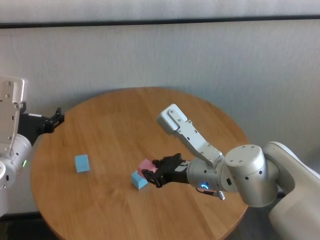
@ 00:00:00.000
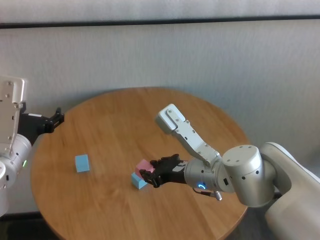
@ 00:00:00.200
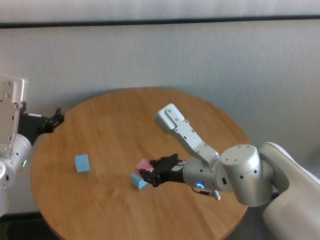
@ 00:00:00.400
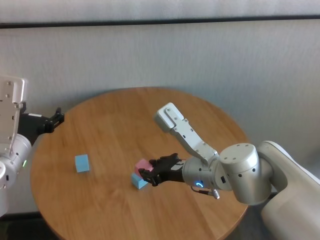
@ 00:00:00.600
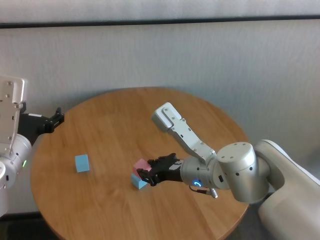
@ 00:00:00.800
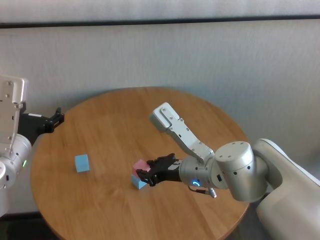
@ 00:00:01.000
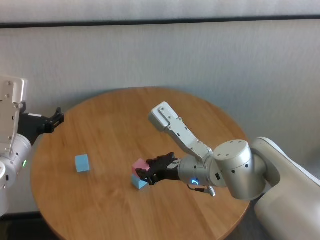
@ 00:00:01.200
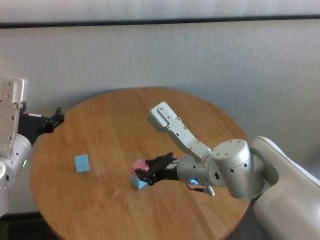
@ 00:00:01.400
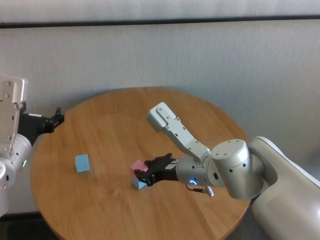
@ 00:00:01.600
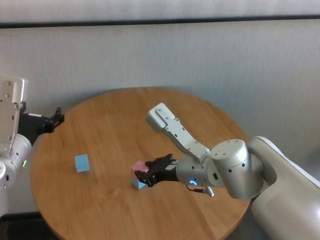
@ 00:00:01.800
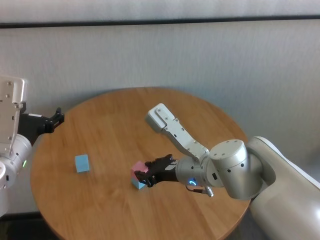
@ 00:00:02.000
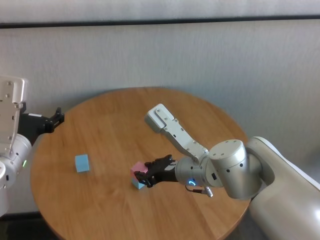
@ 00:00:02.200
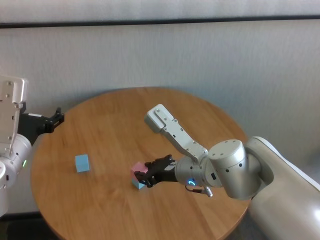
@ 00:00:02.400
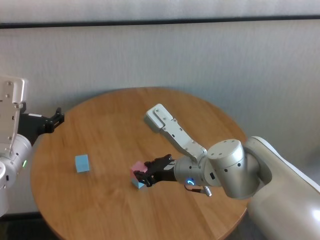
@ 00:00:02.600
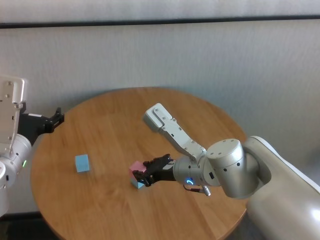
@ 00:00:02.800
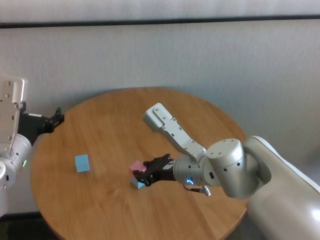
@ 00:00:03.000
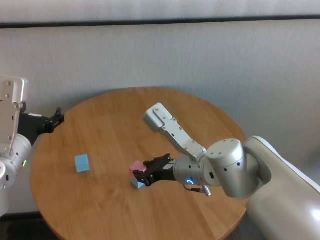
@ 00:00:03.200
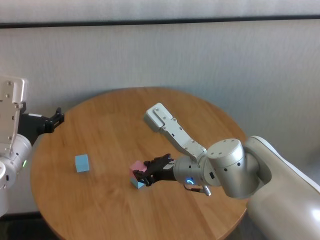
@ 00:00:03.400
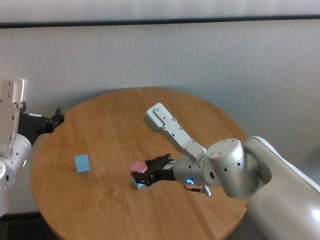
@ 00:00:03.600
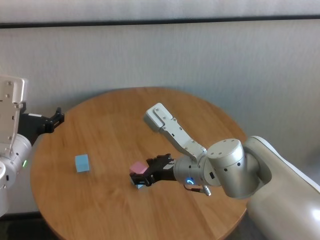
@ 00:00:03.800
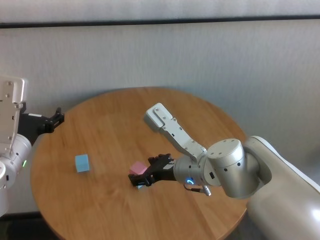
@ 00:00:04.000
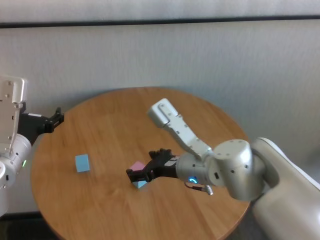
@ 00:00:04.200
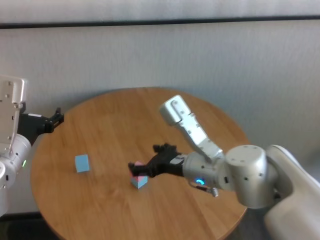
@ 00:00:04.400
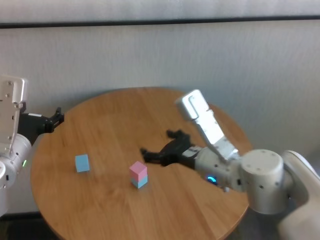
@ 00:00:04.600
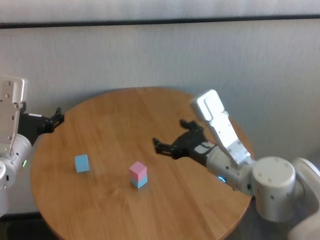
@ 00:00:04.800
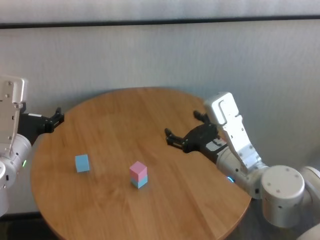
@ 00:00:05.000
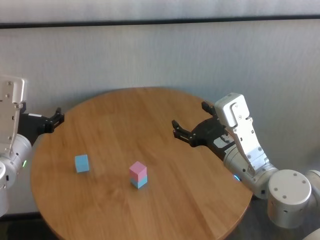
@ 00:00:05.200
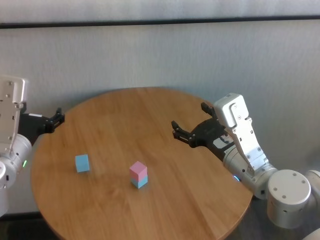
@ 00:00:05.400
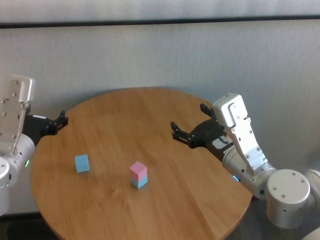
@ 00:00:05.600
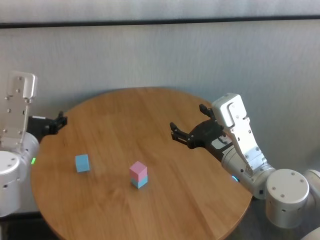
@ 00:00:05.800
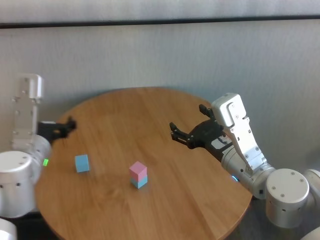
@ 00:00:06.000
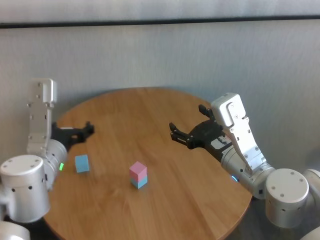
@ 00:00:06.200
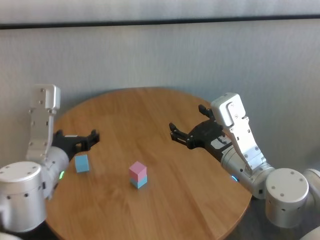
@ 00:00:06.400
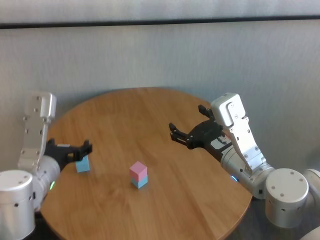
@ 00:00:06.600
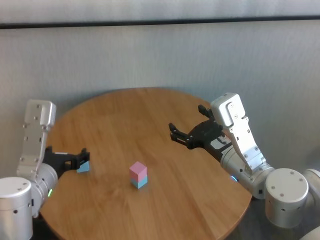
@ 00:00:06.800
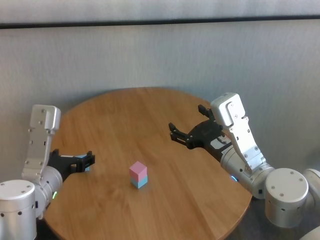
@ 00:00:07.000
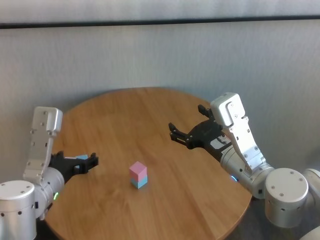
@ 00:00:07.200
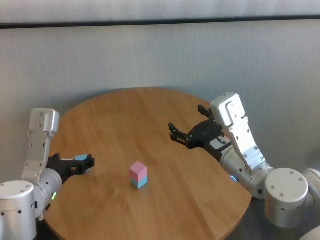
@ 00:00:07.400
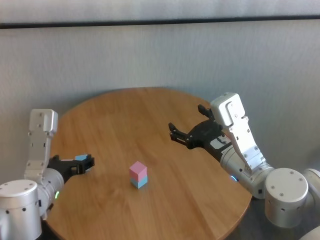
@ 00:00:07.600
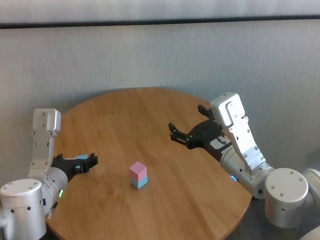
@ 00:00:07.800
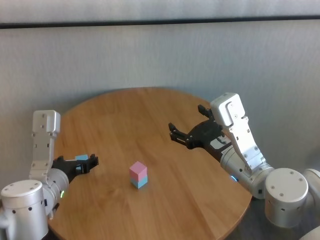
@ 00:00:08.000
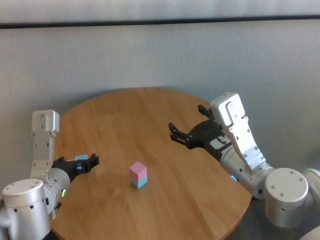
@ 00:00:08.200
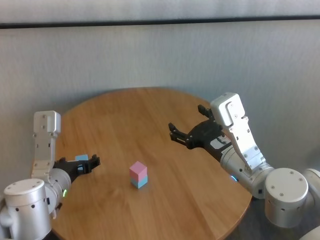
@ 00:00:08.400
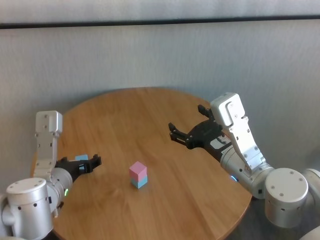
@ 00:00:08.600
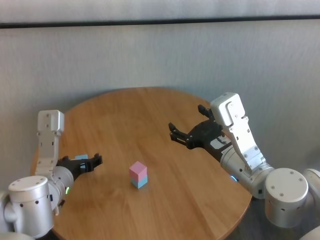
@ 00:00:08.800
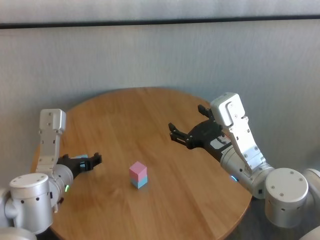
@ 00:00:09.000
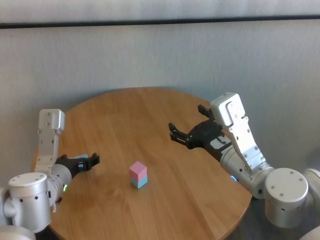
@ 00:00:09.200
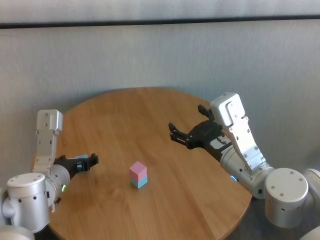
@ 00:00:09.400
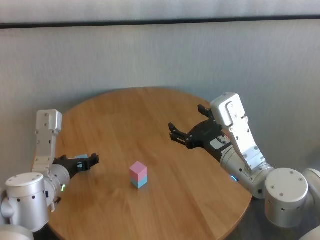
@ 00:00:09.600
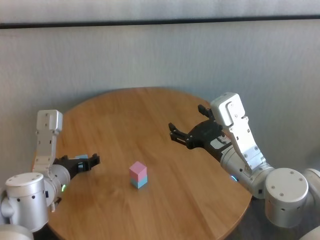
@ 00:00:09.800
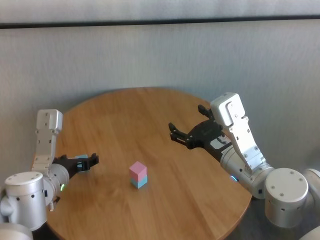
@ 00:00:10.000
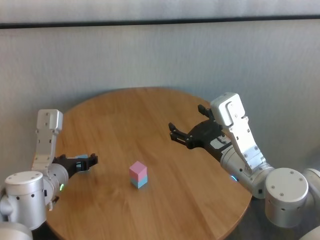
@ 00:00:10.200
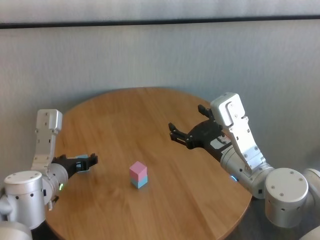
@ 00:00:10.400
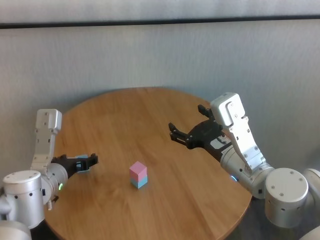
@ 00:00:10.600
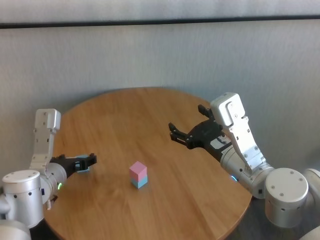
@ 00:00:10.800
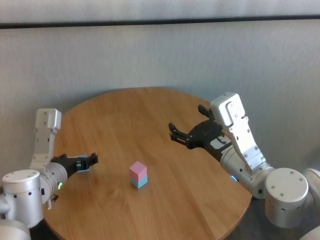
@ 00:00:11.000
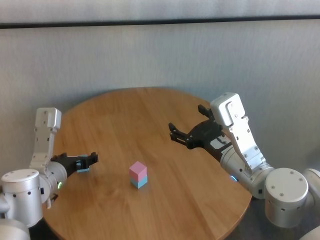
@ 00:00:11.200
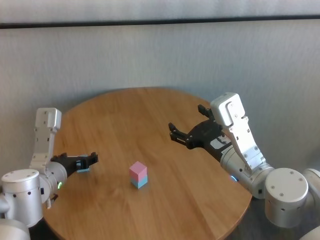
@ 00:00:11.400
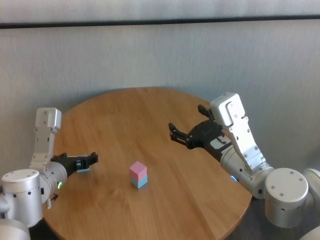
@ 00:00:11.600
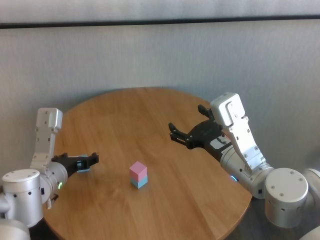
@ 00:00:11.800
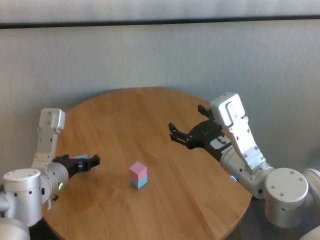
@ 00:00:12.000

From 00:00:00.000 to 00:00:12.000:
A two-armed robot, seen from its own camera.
Task of the whole recording: stack building blocks on the table.
Step, from 00:00:00.000 to 00:00:03.600: Place the pink building block on the blue building blocks with right gripper.

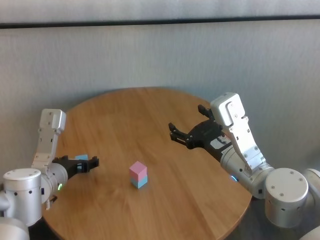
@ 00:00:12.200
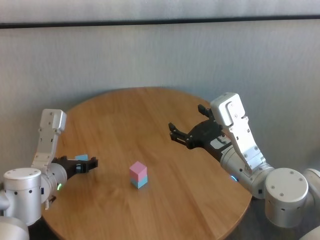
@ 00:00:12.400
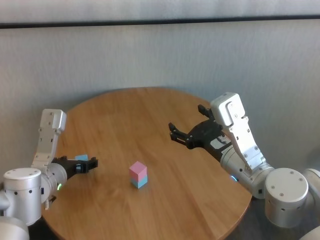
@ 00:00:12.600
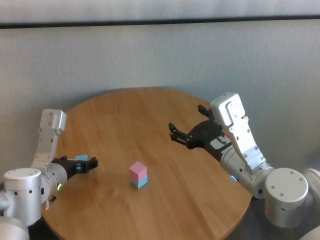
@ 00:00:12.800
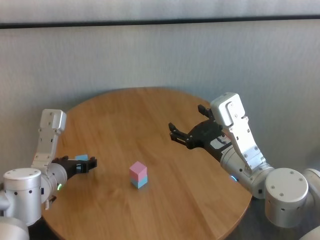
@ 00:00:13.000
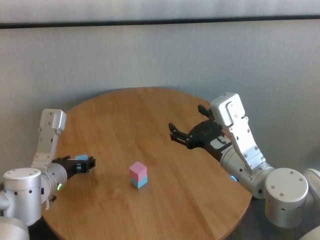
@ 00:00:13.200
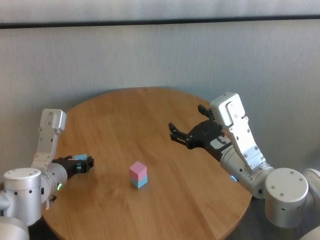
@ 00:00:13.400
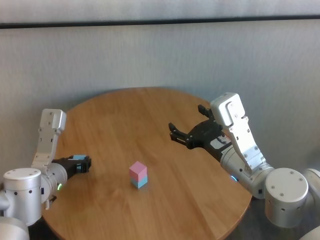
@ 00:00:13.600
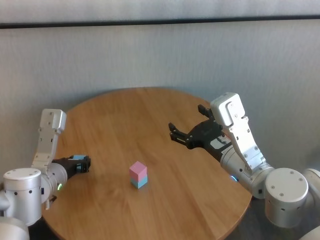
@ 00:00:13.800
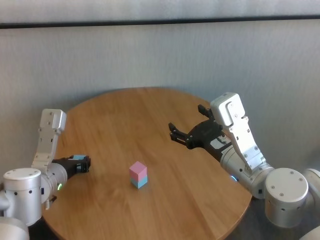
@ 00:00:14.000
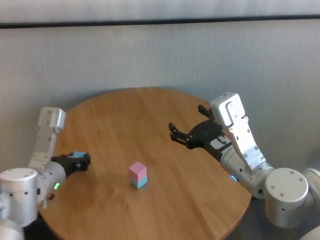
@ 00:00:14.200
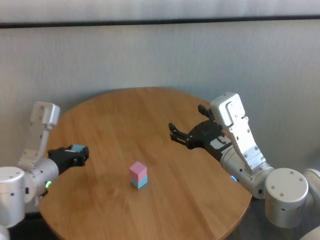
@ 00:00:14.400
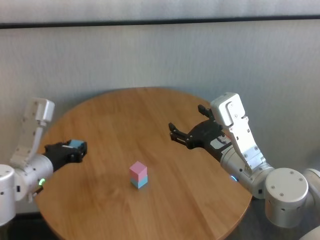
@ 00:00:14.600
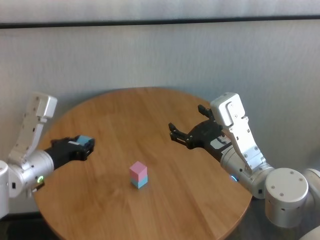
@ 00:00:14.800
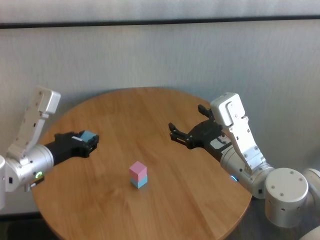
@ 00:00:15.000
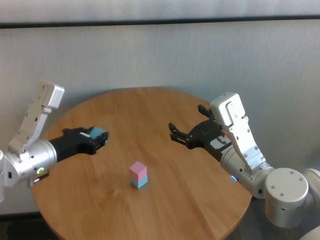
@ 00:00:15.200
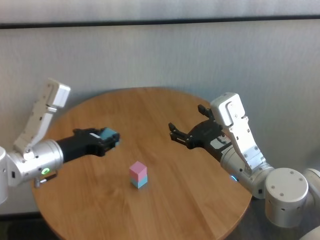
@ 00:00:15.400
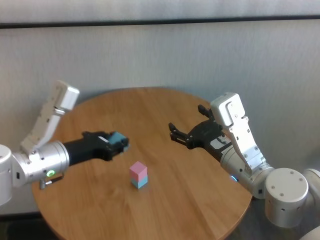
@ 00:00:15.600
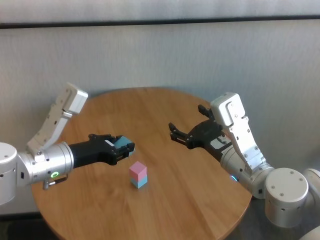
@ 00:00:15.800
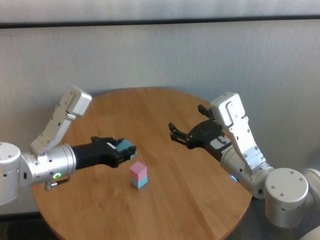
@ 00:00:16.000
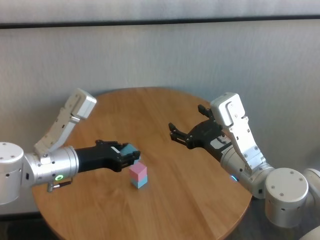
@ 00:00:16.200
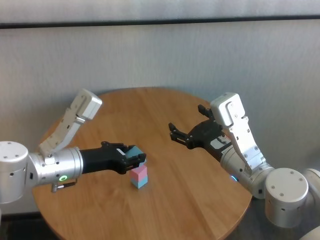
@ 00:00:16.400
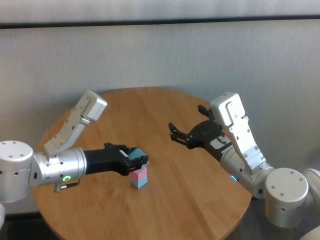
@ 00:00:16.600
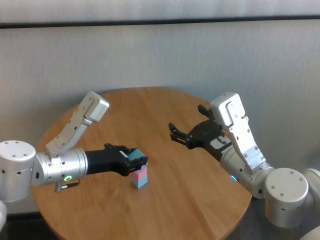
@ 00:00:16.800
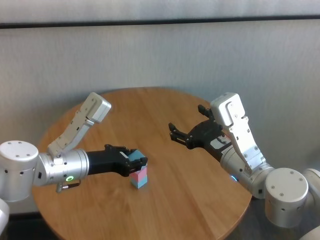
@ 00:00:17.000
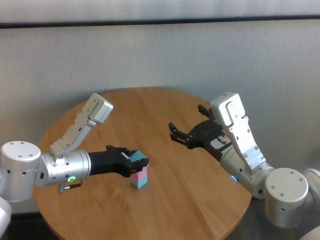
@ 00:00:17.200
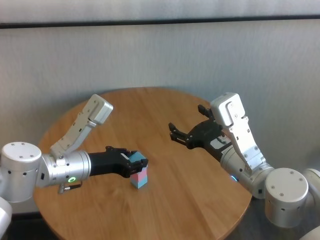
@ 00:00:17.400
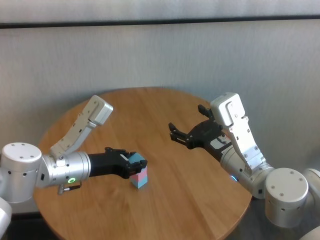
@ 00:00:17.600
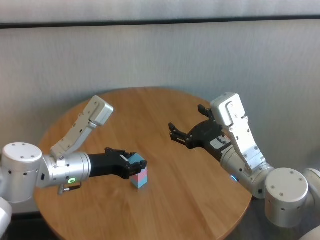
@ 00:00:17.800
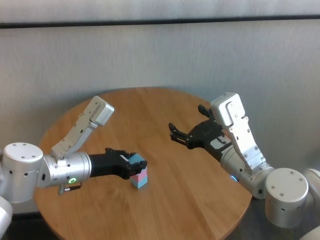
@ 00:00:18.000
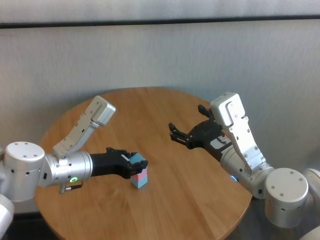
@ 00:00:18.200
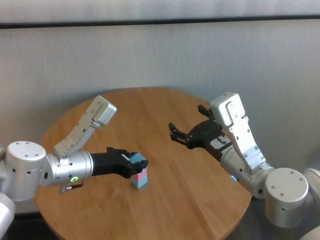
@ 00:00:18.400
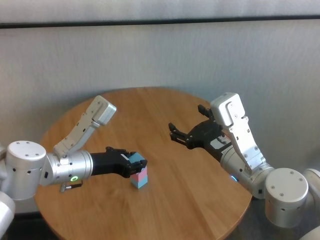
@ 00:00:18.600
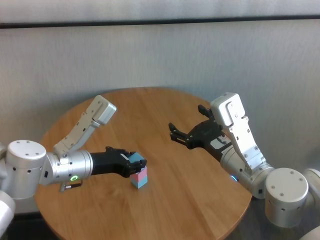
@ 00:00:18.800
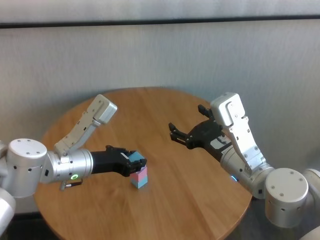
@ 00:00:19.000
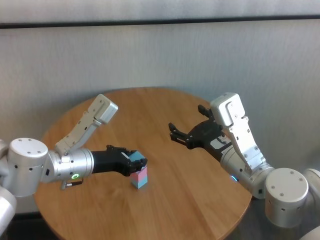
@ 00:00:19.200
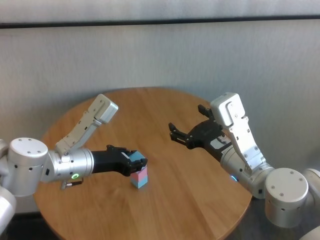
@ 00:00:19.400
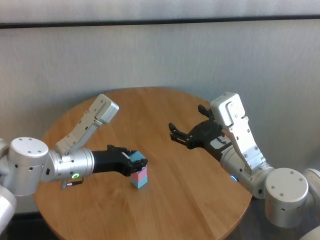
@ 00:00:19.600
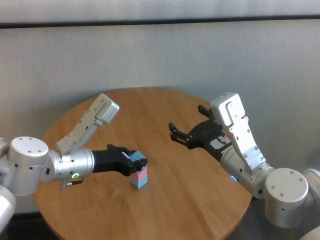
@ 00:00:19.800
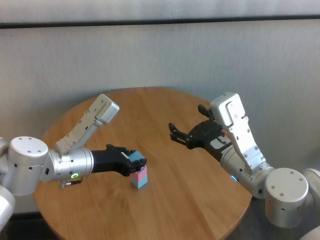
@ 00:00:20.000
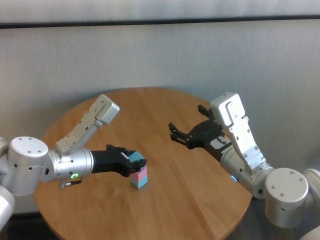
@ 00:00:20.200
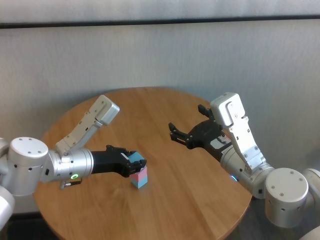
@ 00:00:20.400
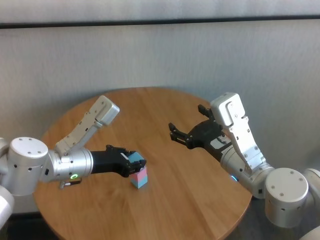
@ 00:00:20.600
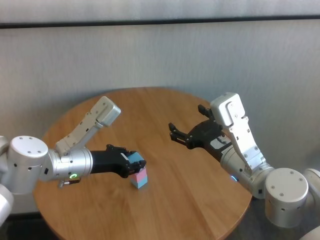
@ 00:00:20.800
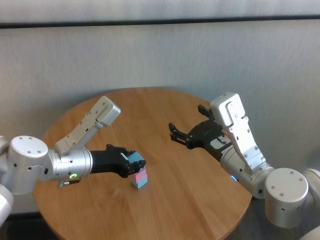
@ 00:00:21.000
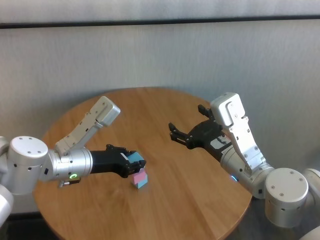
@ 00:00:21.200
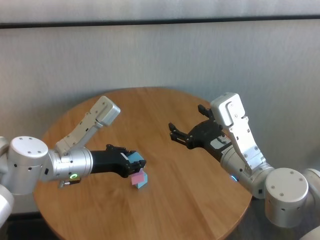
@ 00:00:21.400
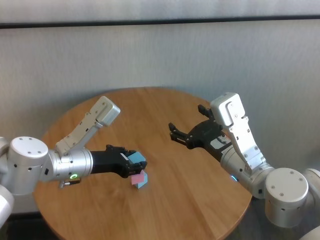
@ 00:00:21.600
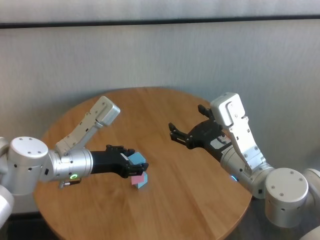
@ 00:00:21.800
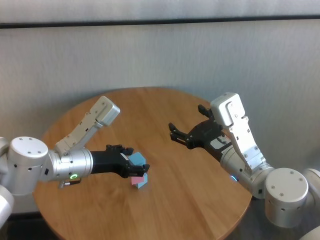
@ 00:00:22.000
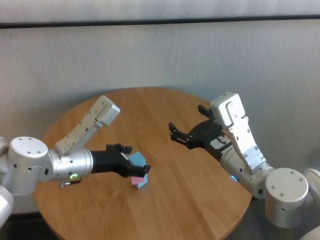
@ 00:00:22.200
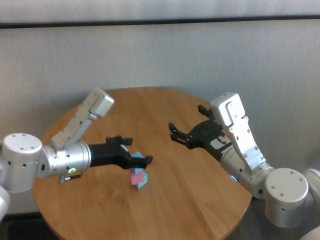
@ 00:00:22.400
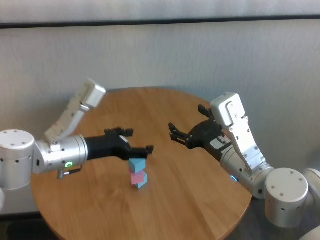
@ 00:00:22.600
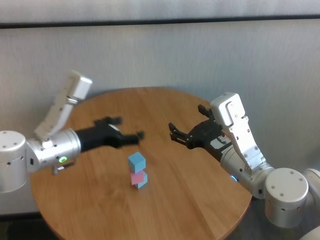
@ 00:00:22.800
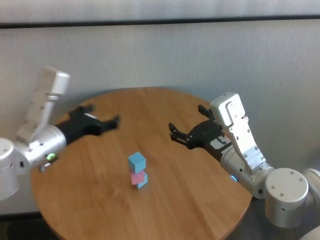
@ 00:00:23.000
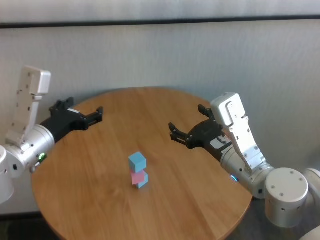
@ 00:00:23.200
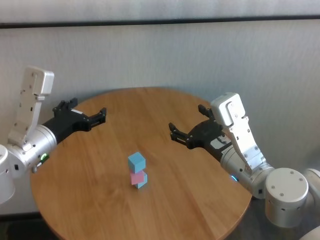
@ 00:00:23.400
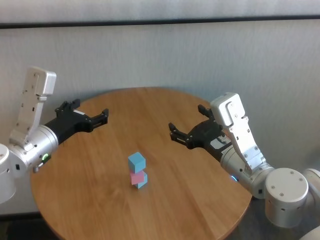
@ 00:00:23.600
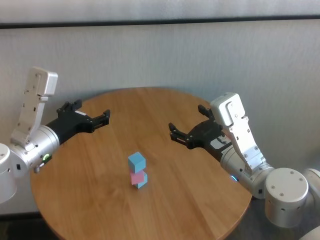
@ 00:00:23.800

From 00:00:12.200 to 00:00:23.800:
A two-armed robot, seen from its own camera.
Task of the whole recording: stack building blocks on the table.
Step, from 00:00:13.800 to 00:00:21.600: Place the blue building block on the pink building blocks with left gripper.
